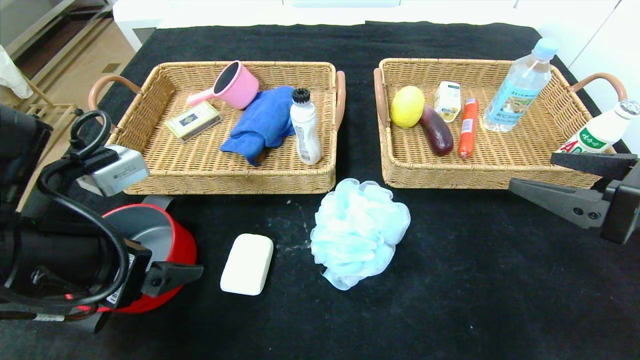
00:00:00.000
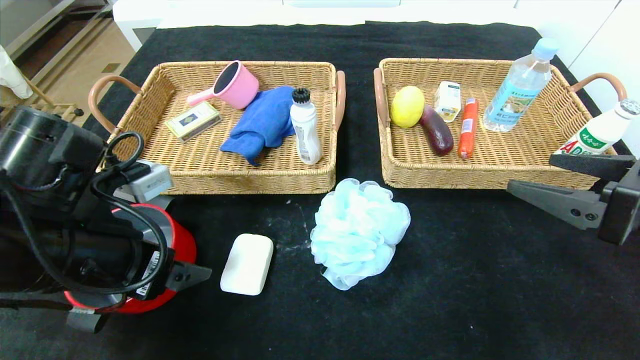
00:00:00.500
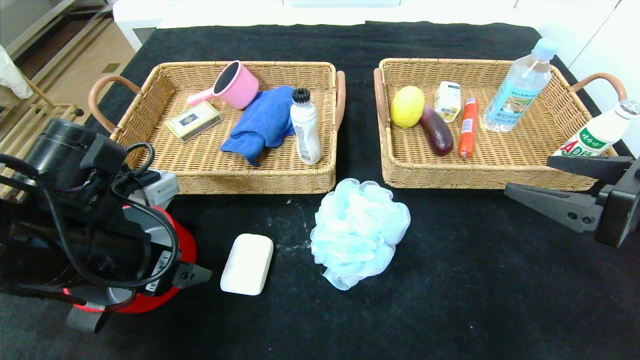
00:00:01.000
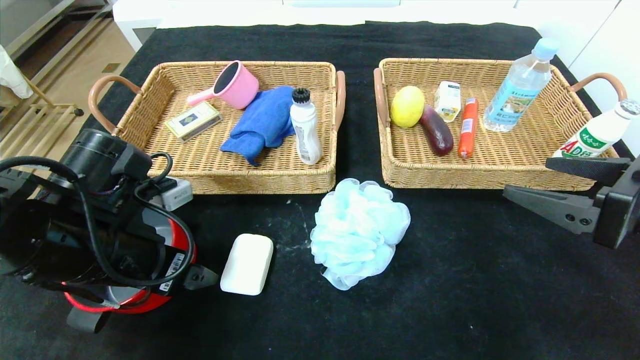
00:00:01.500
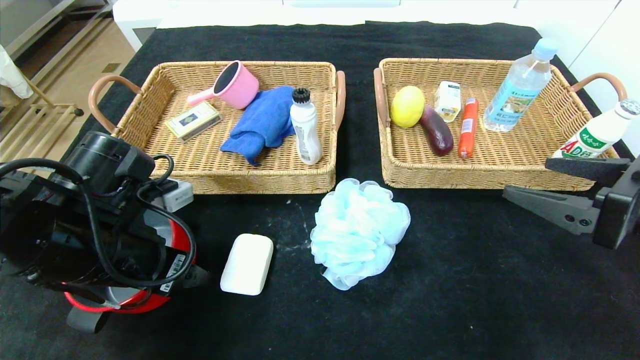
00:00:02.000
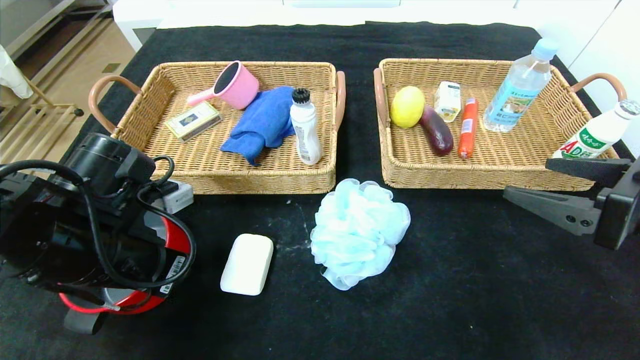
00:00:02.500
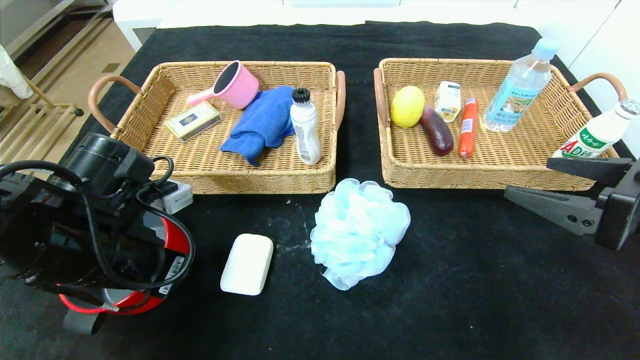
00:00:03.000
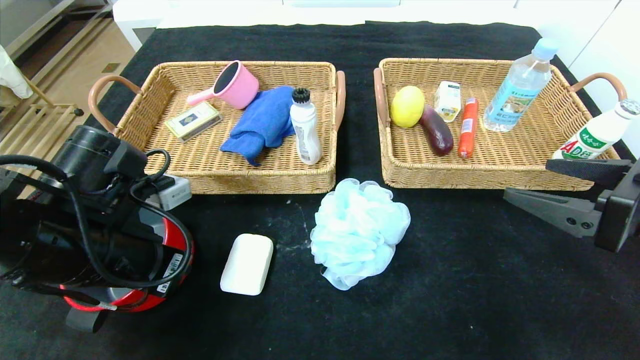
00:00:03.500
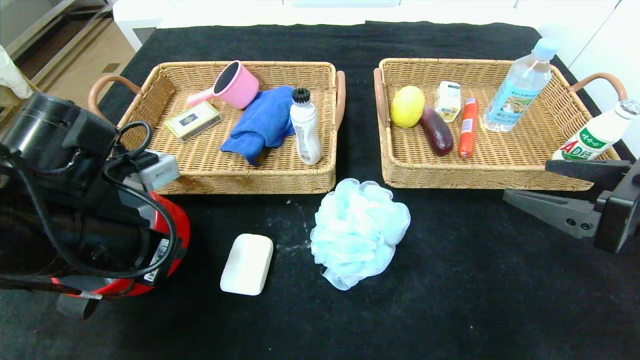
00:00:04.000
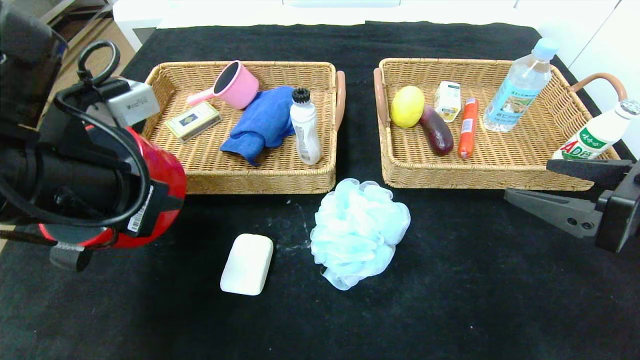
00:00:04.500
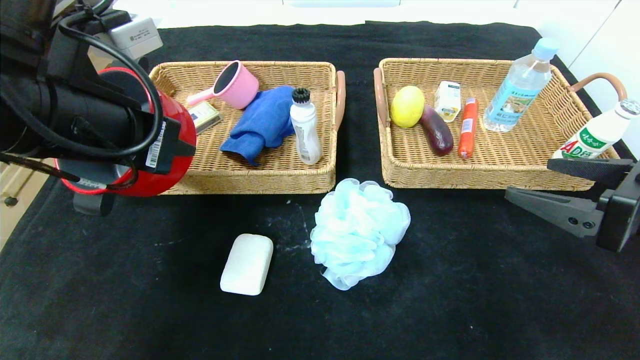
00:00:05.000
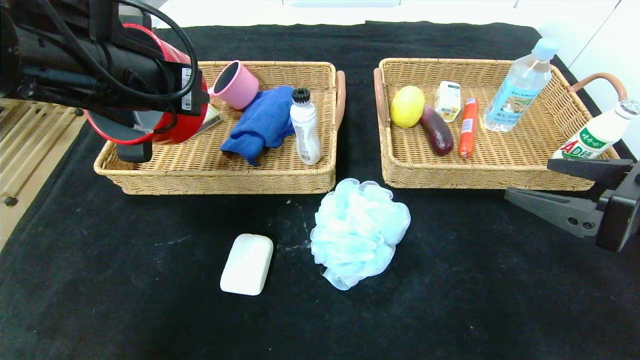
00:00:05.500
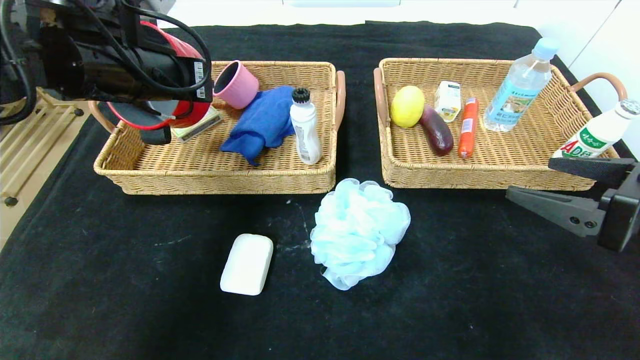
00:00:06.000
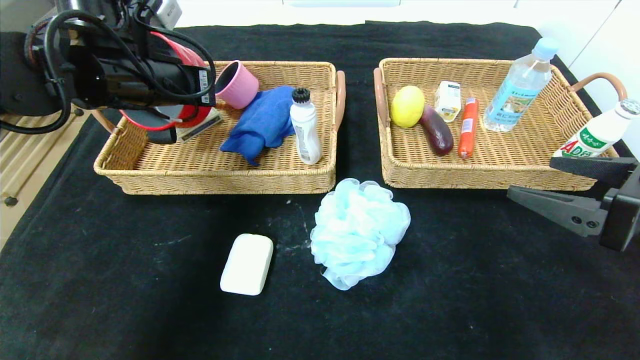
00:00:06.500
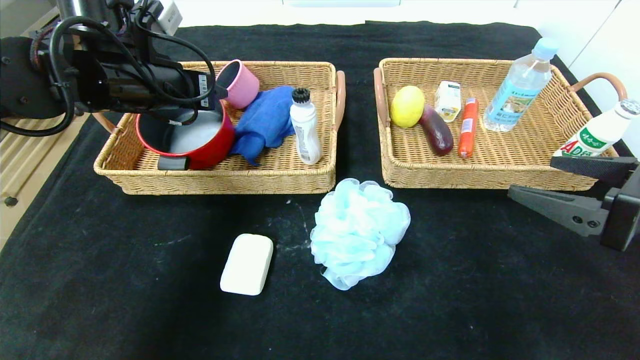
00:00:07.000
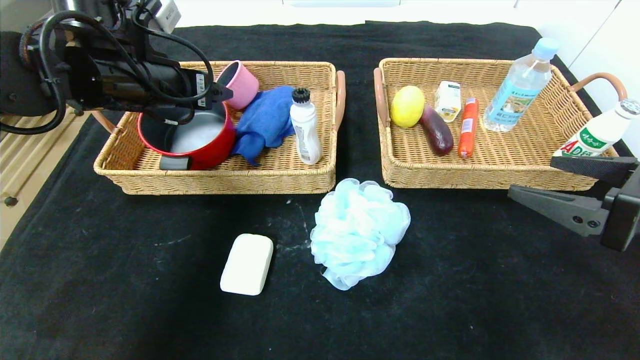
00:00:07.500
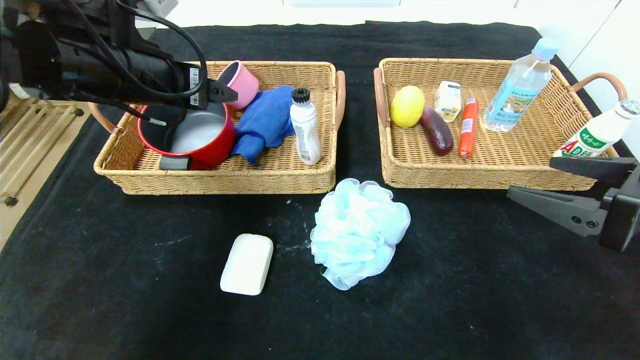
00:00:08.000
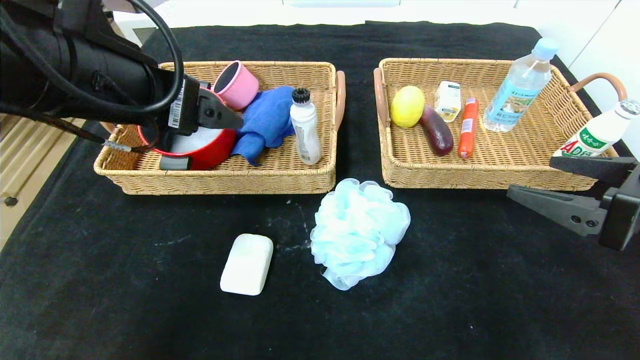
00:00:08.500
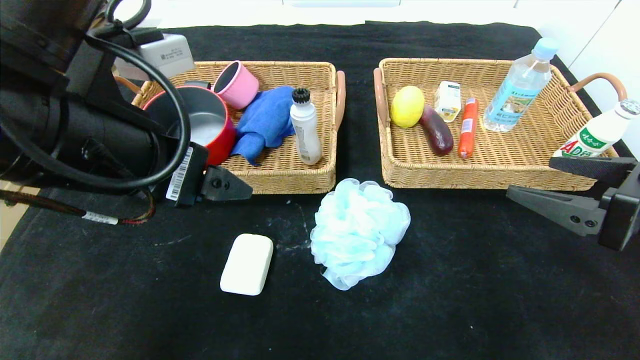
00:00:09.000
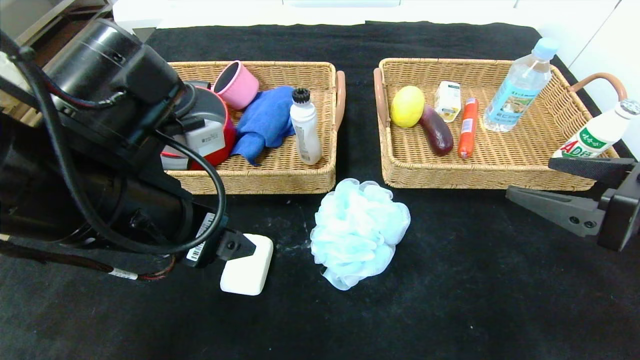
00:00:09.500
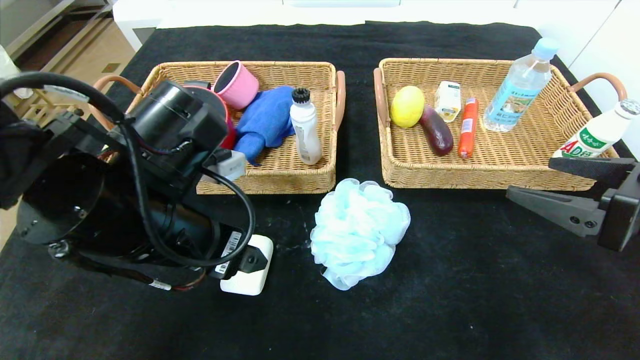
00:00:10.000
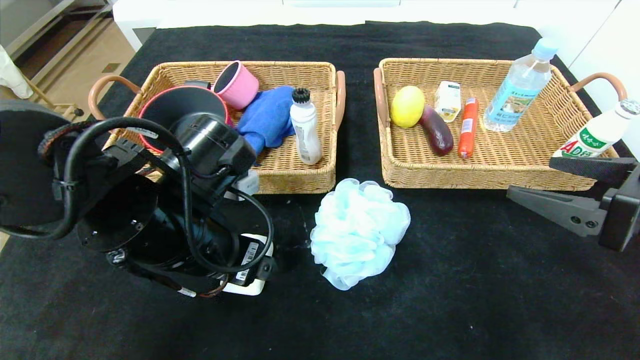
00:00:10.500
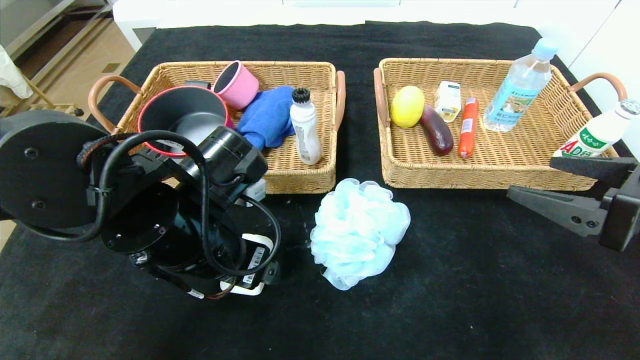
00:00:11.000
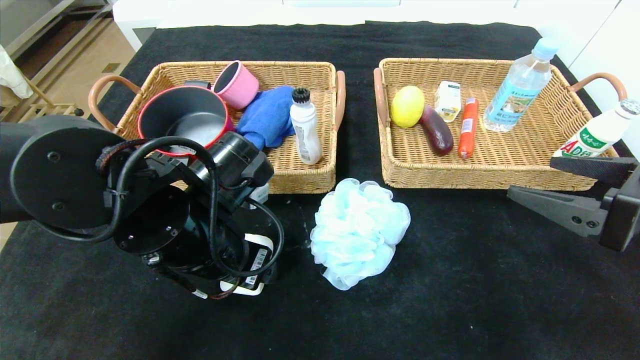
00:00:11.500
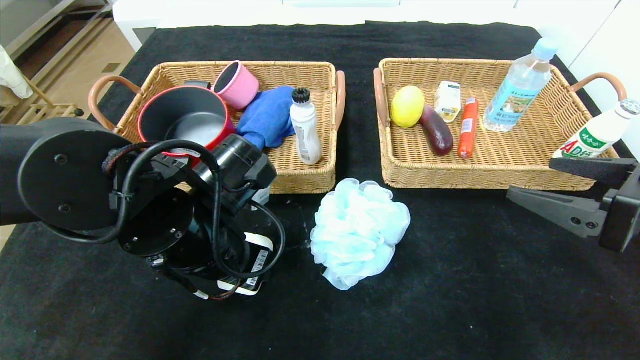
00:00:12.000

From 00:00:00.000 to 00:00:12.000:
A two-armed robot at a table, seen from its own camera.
Step, from 00:00:00.000 to 00:00:07.000: Grasp the red pot and put it in the left basket.
From 00:00:00.000 to 00:00:02.000: The left gripper shifts approximately 5 cm forward.
From 00:00:02.000 to 00:00:04.000: The left gripper closes its fingers.
From 00:00:04.000 to 00:00:06.000: The left gripper goes approximately 15 cm forward and upward.
From 00:00:06.000 to 00:00:08.000: The left gripper opens up.
From 00:00:08.000 to 00:00:10.000: The left gripper travels downward, backward and to the right by roughly 15 cm.
From 00:00:10.000 to 00:00:12.000: The left gripper changes place by some 5 cm, and closes up.

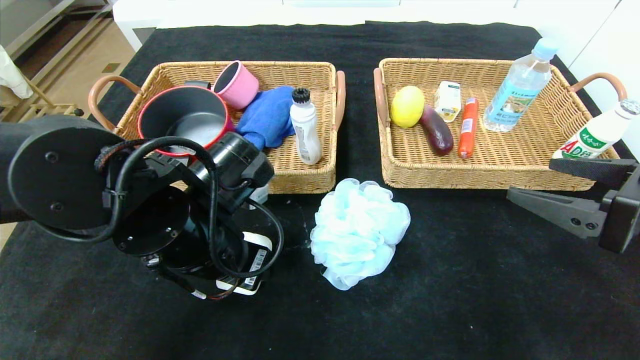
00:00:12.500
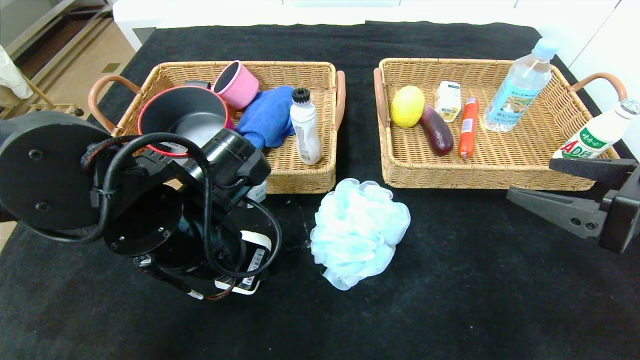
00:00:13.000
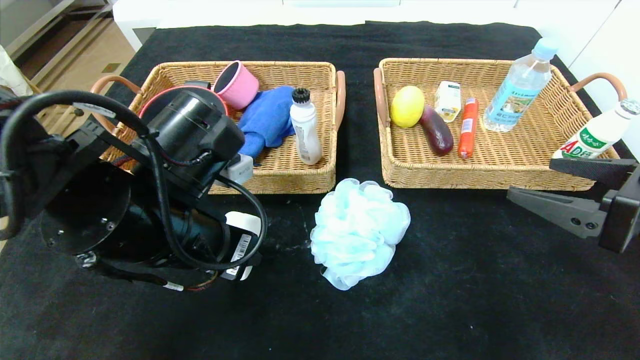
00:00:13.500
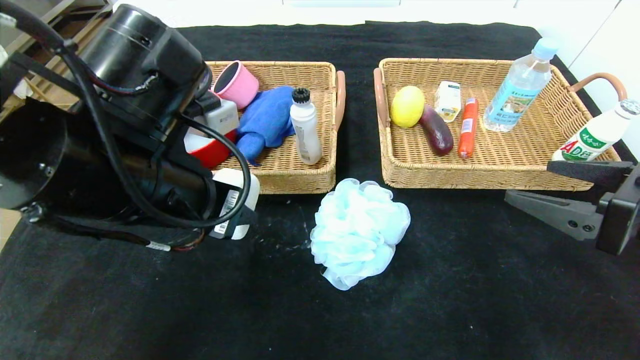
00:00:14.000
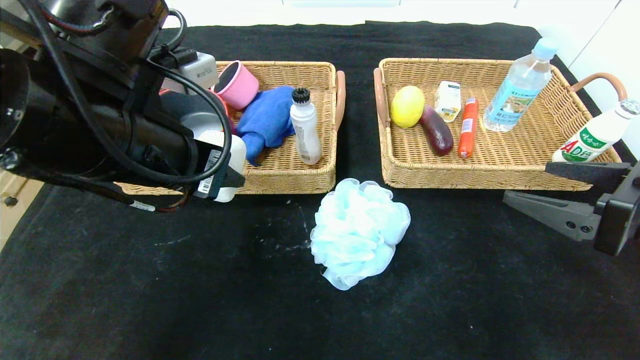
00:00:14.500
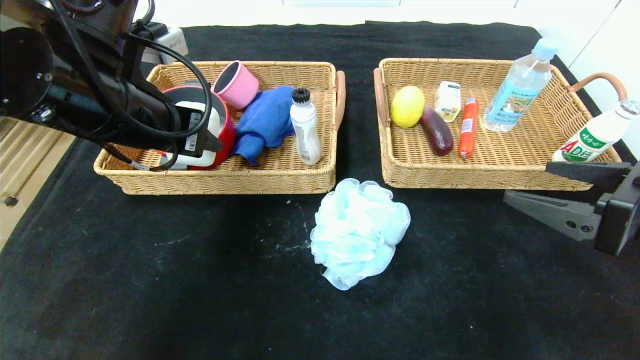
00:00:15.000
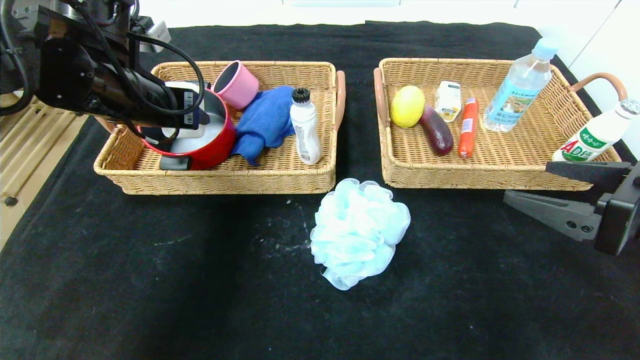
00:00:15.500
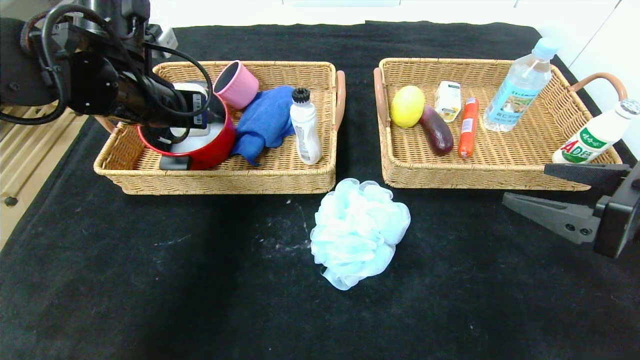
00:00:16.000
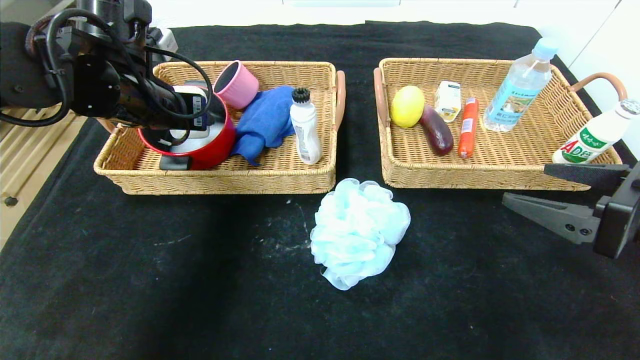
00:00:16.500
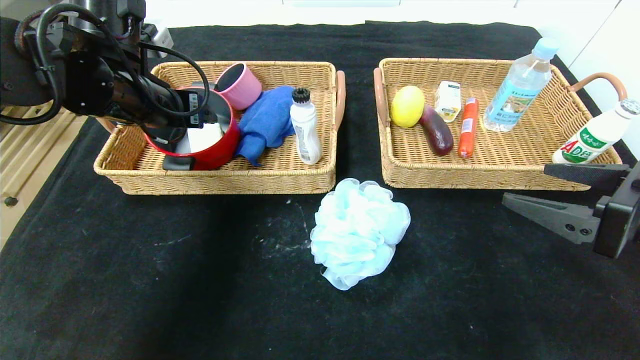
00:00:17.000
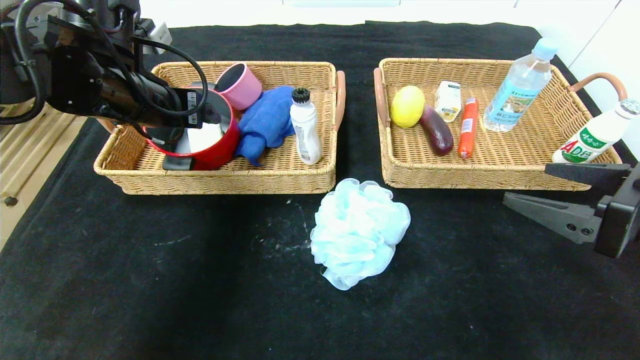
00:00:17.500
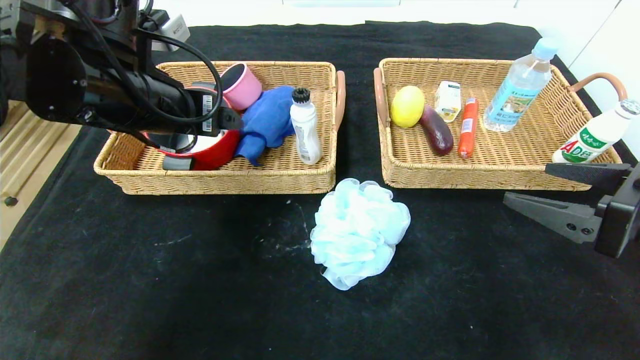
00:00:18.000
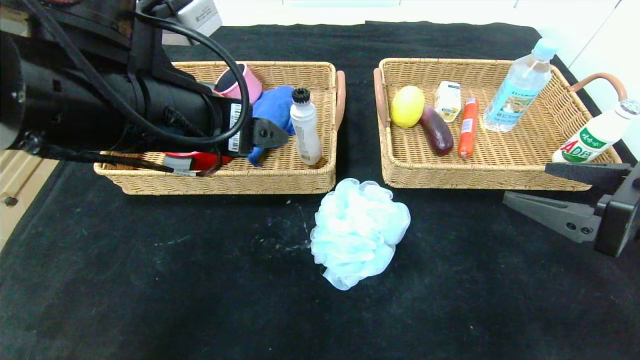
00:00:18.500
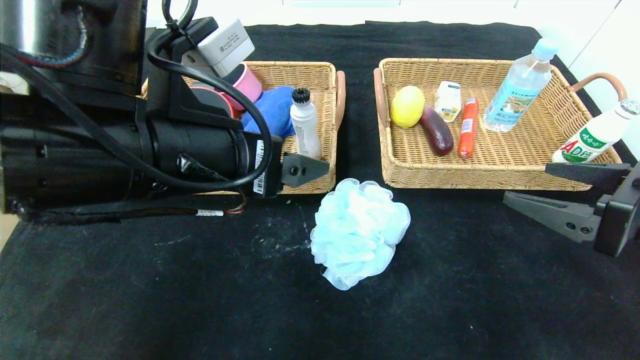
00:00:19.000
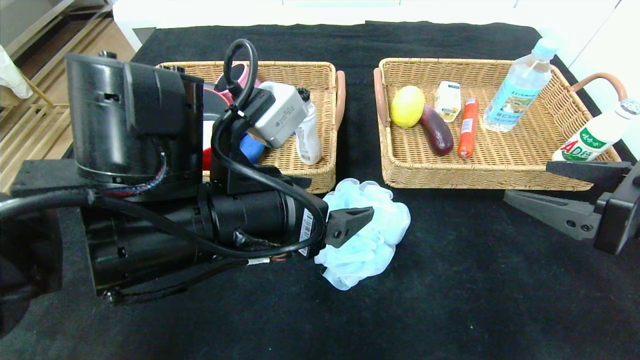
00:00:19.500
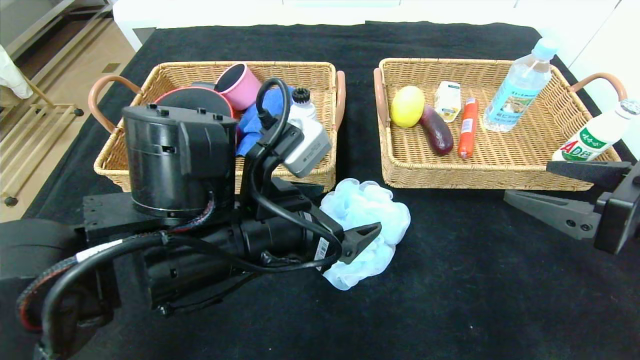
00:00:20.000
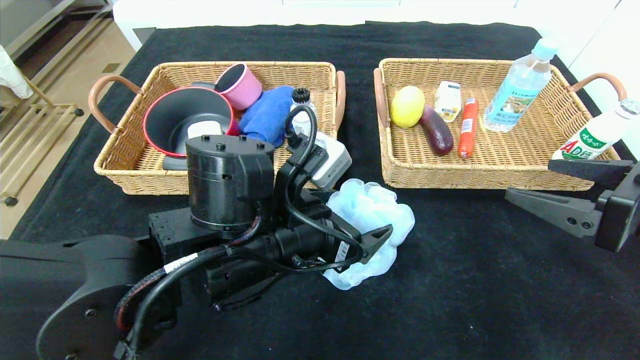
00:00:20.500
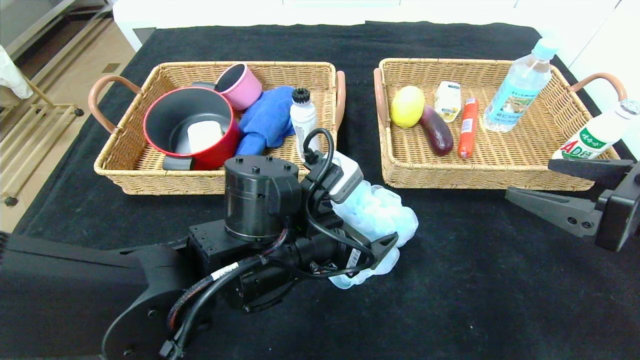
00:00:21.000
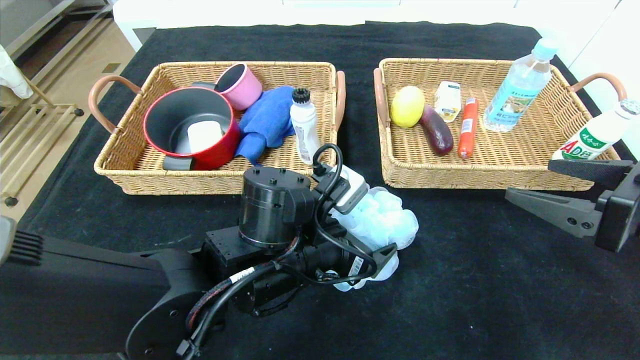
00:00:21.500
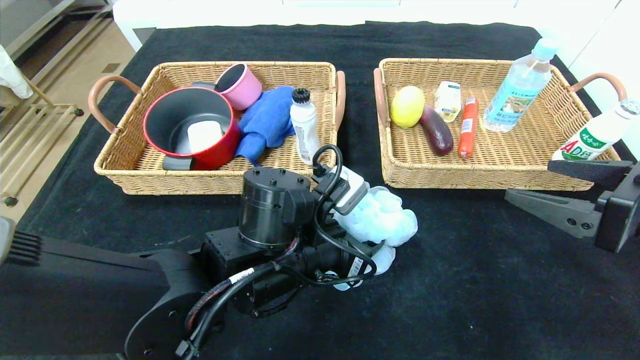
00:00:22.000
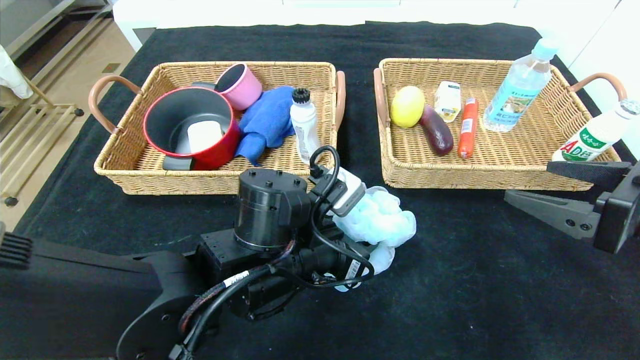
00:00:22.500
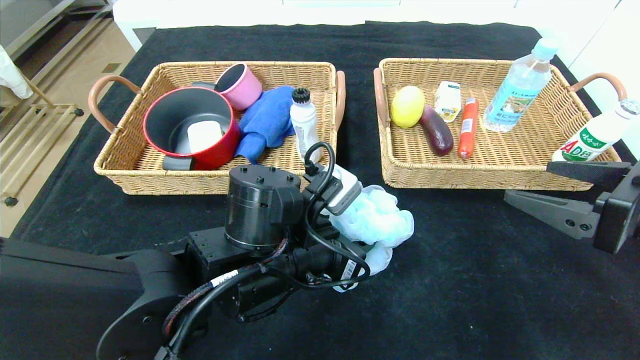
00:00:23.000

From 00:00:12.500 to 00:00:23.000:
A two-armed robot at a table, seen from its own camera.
Step, from 00:00:12.500 to 00:00:16.500: Grasp the white eraser and put it in the left basket.
From 00:00:12.500 to 00:00:14.500: The left gripper heads upward, covering some 10 cm.
From 00:00:14.500 to 00:00:16.500: The left gripper travels forward and to the left by some 15 cm.
From 00:00:16.500 to 00:00:19.000: The left gripper moves backward and to the right, roughly 20 cm, and opens.
From 00:00:19.000 to 00:00:21.000: The left gripper goes roughly 15 cm downward and to the right.
From 00:00:21.000 to 00:00:23.000: The left gripper closes.
